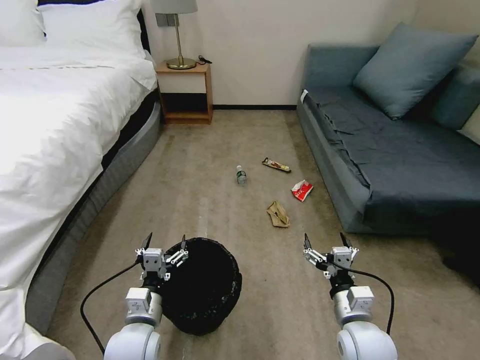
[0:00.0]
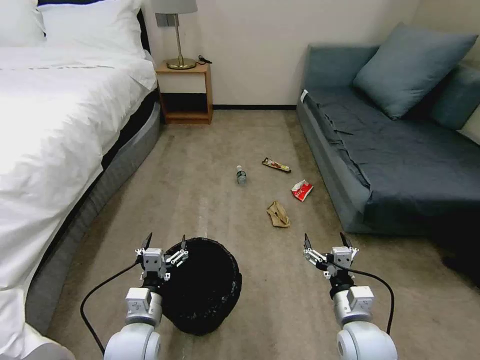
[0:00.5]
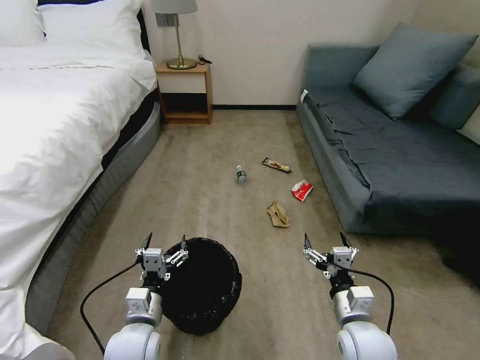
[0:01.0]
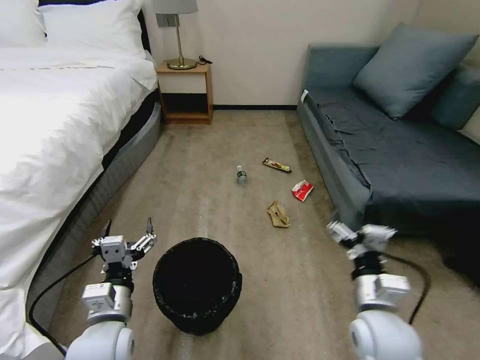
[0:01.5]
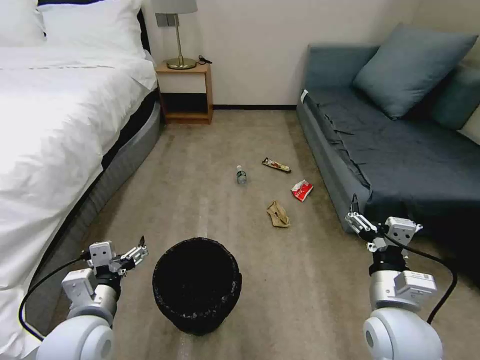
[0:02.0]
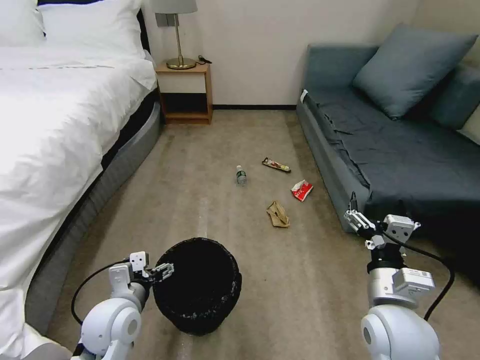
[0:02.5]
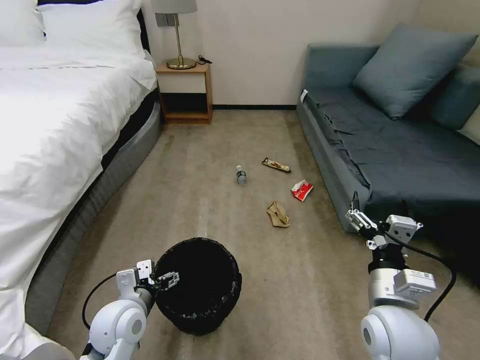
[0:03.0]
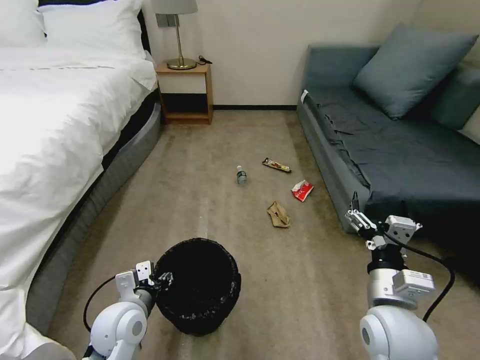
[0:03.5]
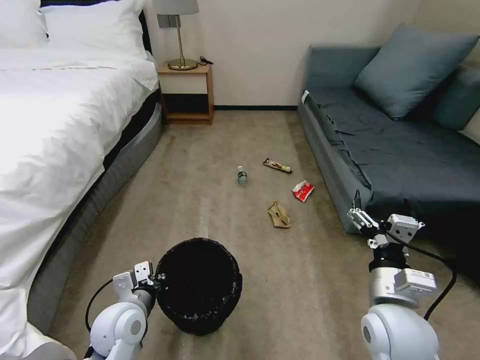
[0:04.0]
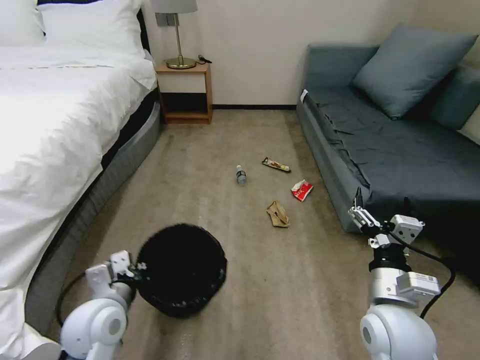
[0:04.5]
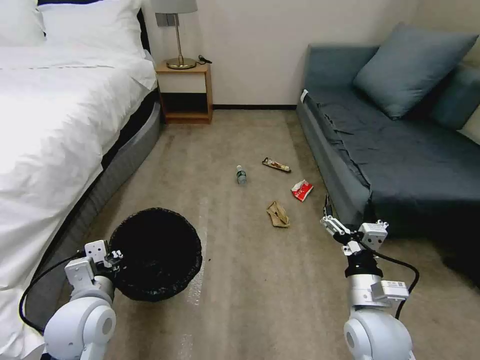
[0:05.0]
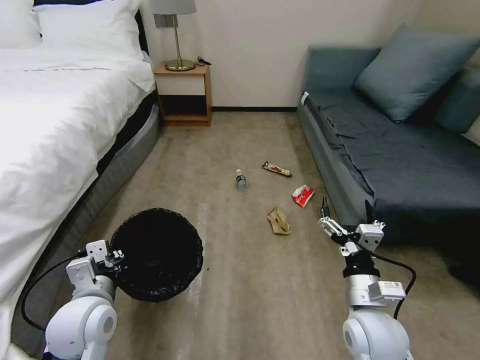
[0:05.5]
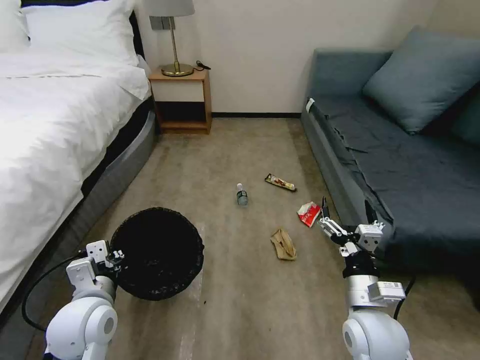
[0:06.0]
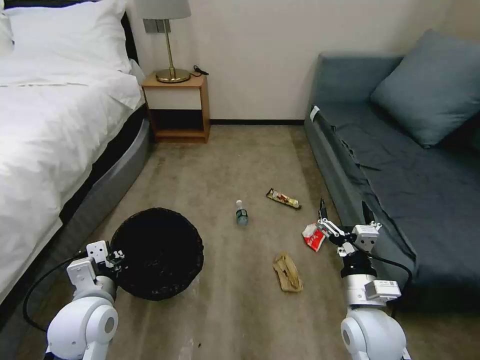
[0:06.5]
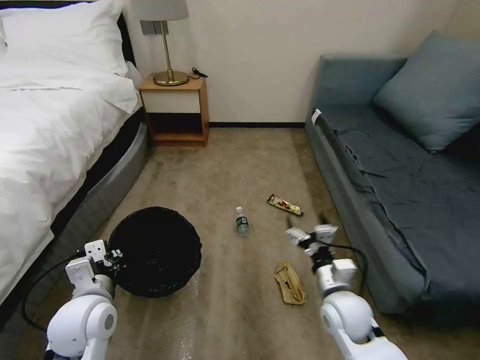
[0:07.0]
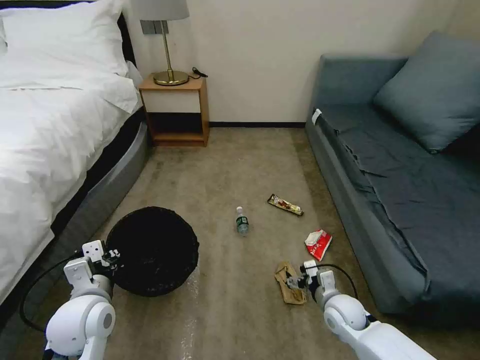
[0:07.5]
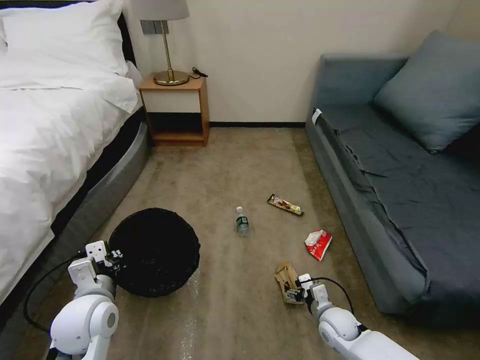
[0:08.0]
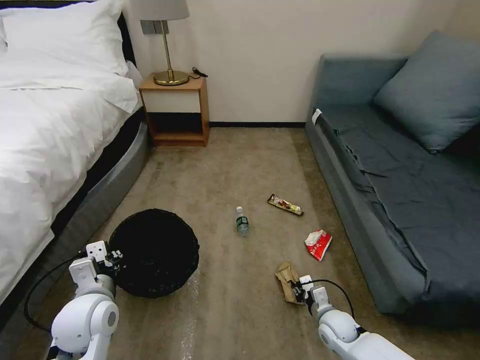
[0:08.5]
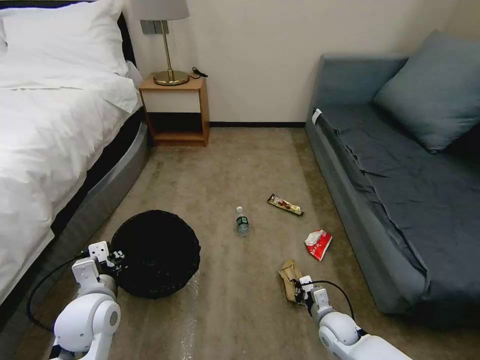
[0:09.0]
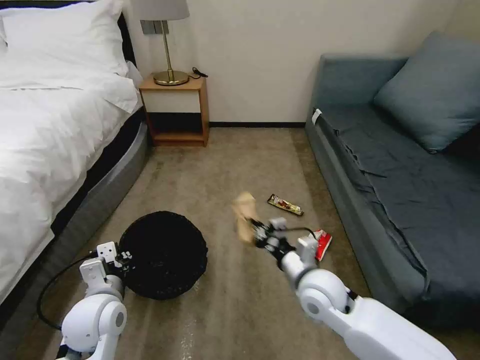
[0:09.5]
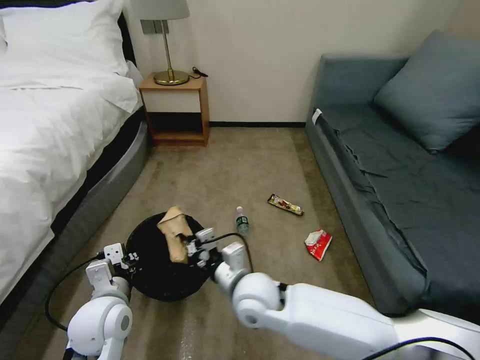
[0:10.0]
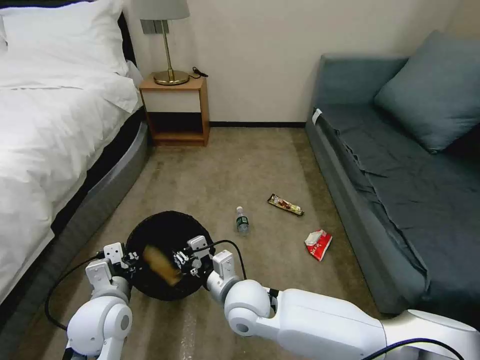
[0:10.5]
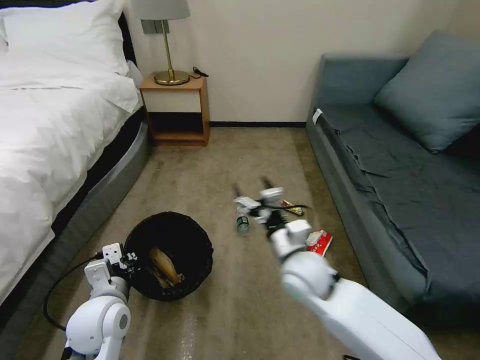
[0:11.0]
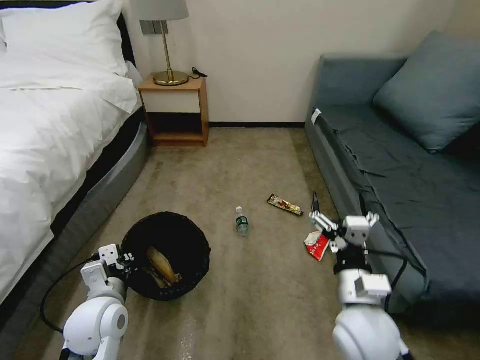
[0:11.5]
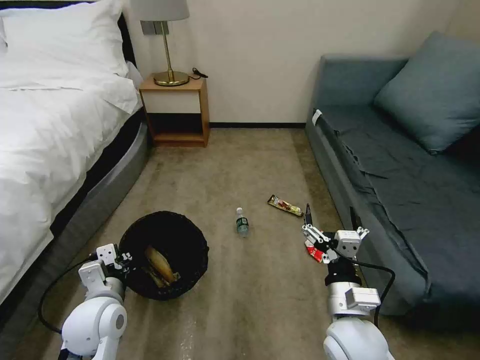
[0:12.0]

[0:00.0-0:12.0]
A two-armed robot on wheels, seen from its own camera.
Task of the whole recording: Pick up the trash bin, then pick up the garbage on the floor and place it into the trash bin.
0:02.0 to 0:04.0: The left gripper heads downward, covering approximately 10 cm, and closes.
0:04.0 to 0:06.0: The left gripper is displaced upward by approximately 5 cm.
0:06.0 to 0:08.0: The right gripper shifts roughly 20 cm downward.
0:08.0 to 0:10.0: The right gripper travels to the left and upward by some 30 cm, and closes its fingers.
0:10.0 to 0:12.0: The right gripper heads to the right and backward, covering approximately 20 cm, and opens.

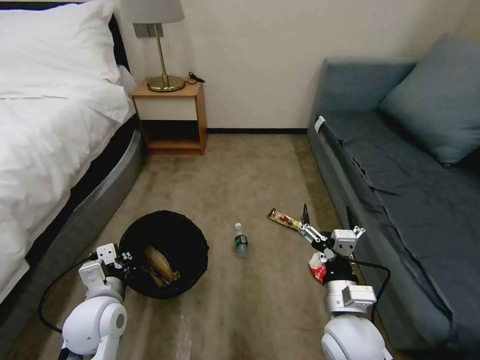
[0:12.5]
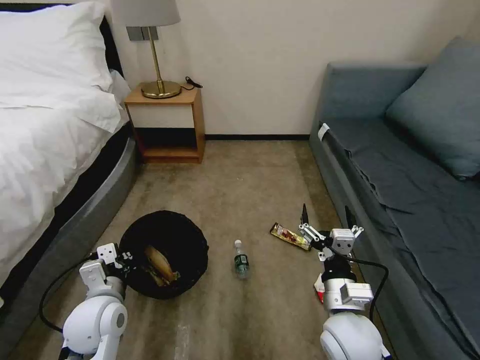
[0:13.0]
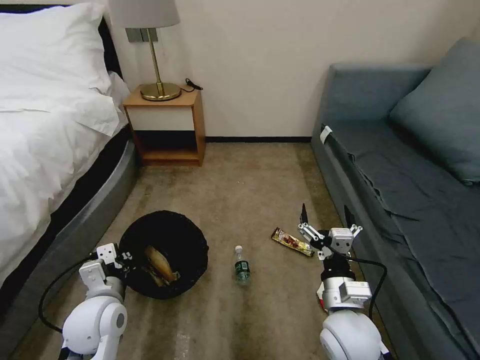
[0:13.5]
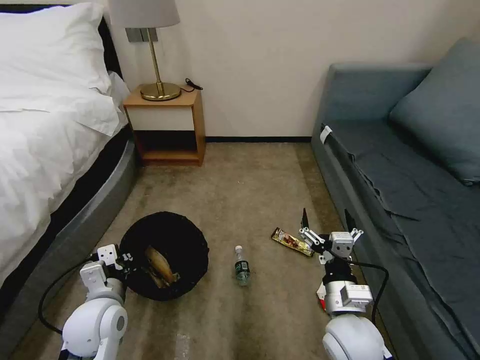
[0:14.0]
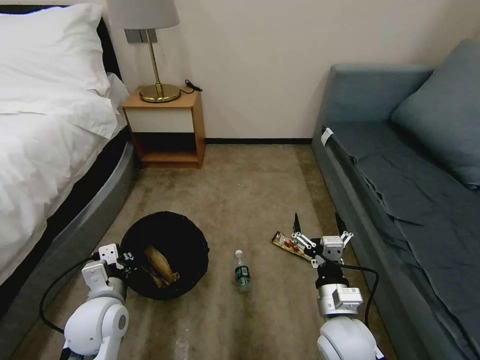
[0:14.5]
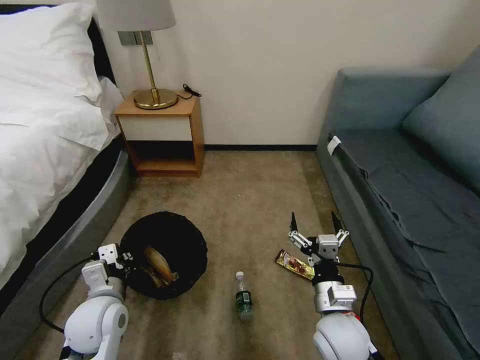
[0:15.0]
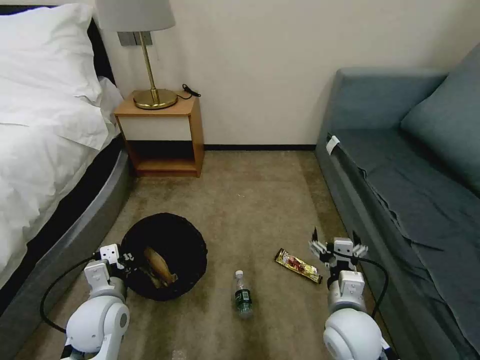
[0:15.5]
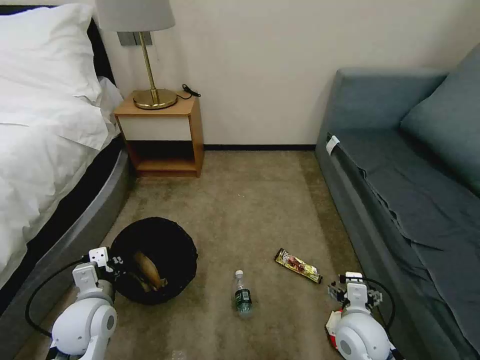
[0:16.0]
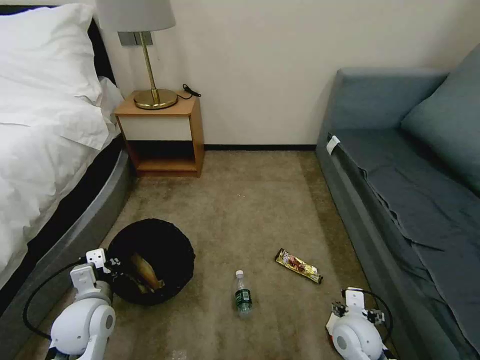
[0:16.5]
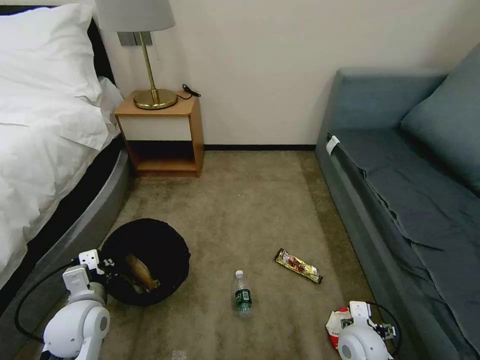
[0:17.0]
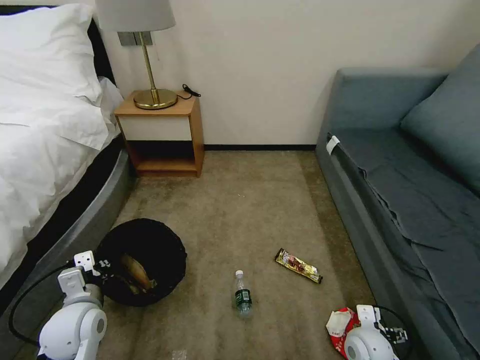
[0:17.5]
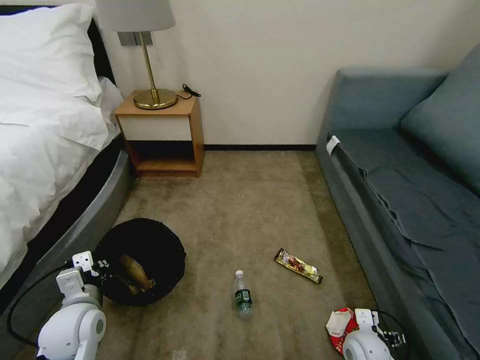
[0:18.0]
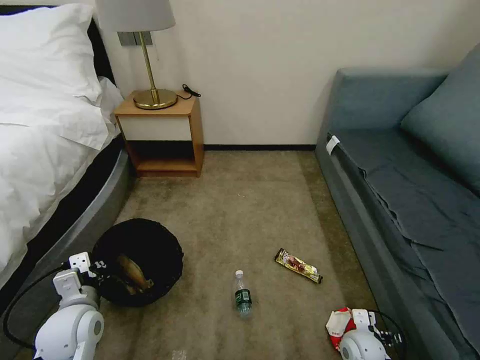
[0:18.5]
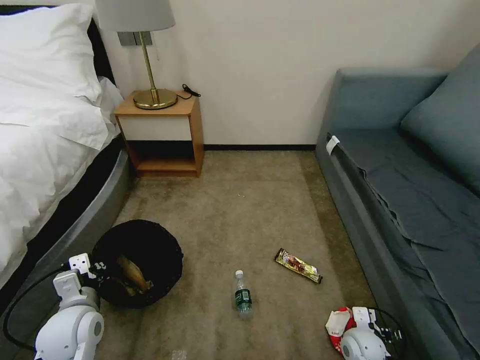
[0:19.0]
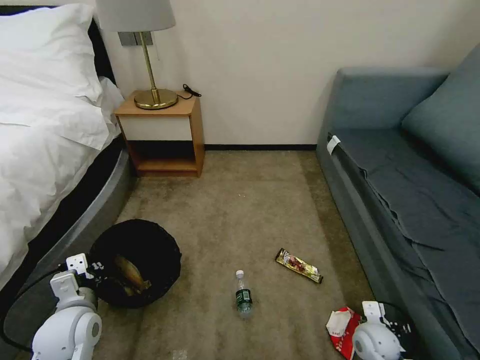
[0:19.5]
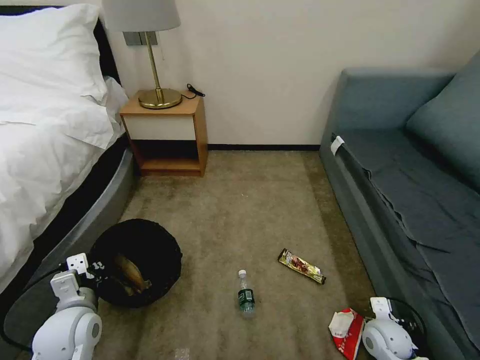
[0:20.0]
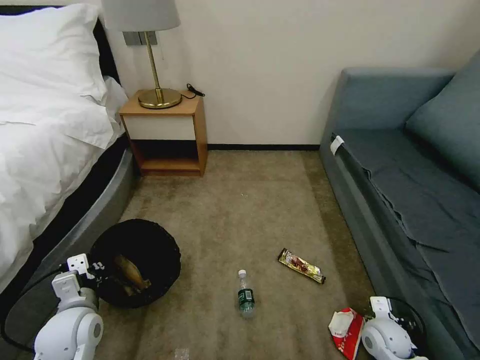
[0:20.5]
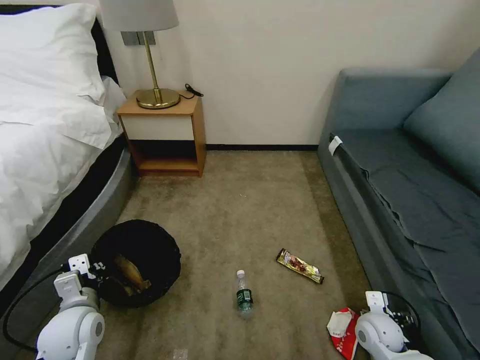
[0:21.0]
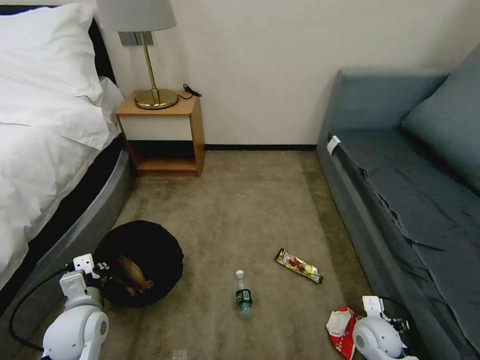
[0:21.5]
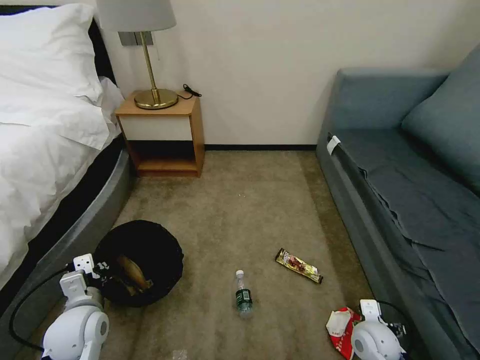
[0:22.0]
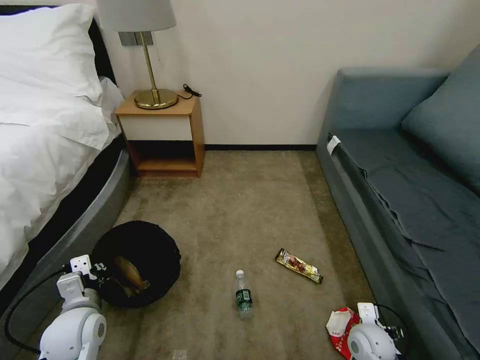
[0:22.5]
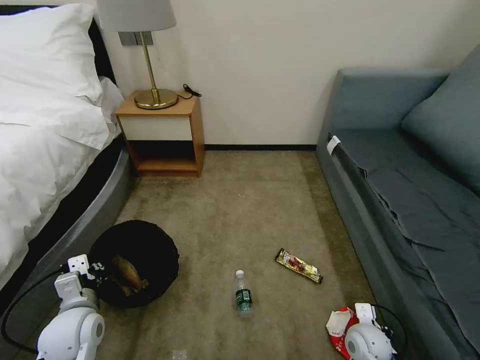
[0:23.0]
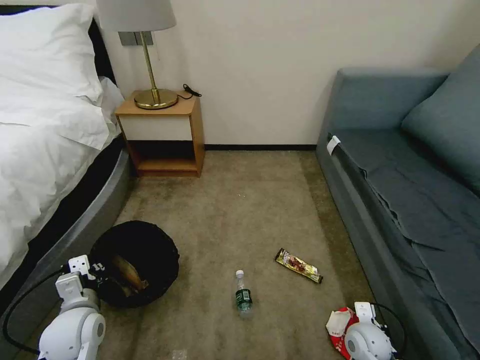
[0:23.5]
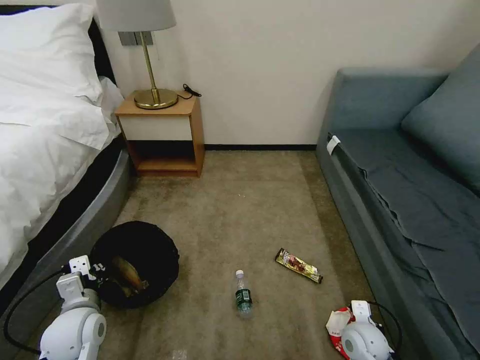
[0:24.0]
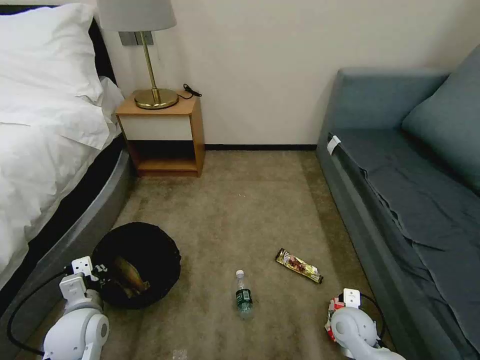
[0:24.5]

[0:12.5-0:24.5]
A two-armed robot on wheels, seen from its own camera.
Task of the whole recording: Pick up the trash bin, then pick up the garbage on the floor and place it into the trash bin.
0:12.5 to 0:14.5: The grippers make only small movements.
0:14.5 to 0:16.5: The right gripper moves downward and to the right, roughly 10 cm.
0:16.5 to 0:18.5: The right gripper heads downward and to the right, covering roughly 10 cm.
0:18.5 to 0:20.5: The right gripper heads upward, covering about 5 cm.
0:20.5 to 0:22.5: The grippers move only a little.
0:22.5 to 0:24.5: The right gripper moves some 5 cm, and closes, then opens again.

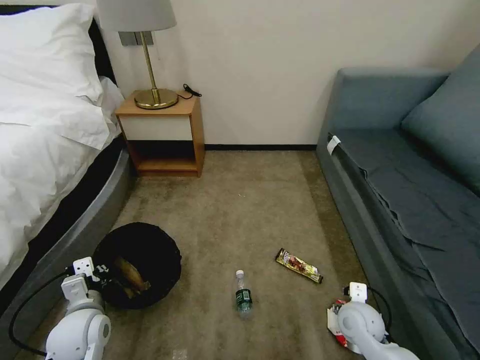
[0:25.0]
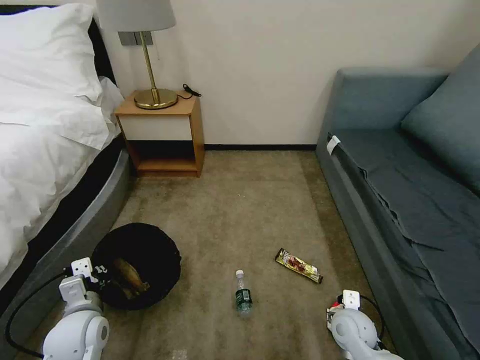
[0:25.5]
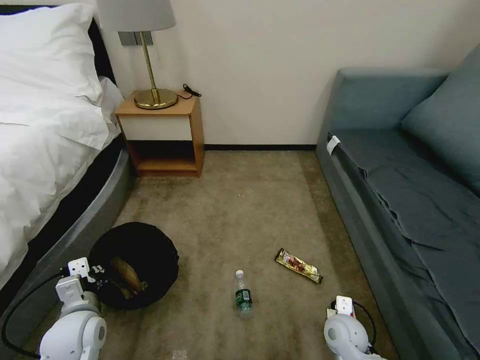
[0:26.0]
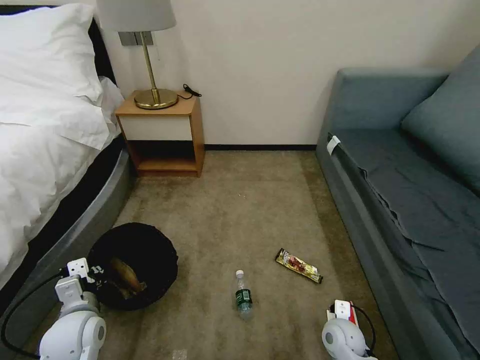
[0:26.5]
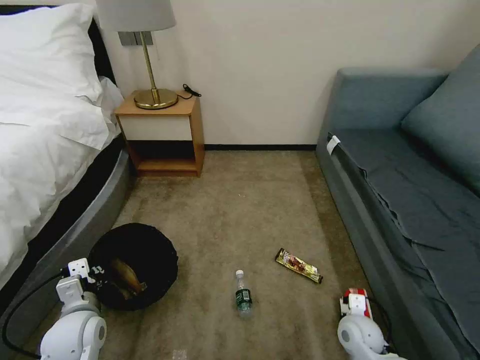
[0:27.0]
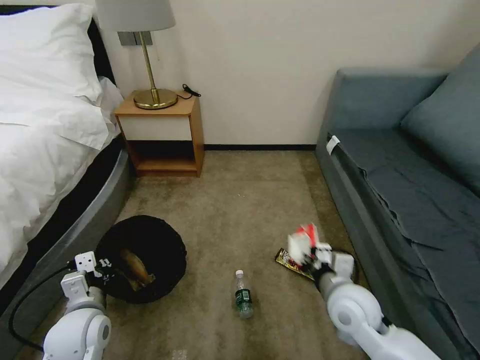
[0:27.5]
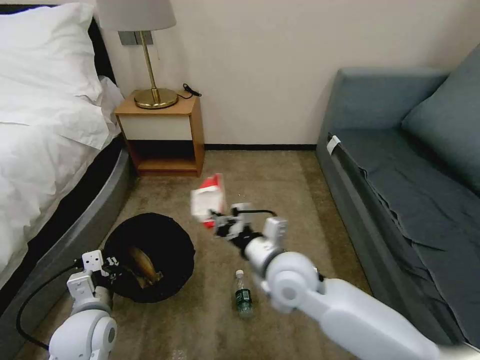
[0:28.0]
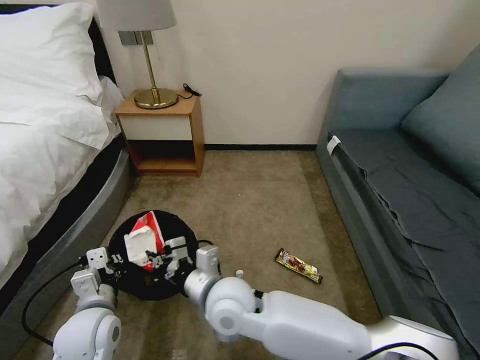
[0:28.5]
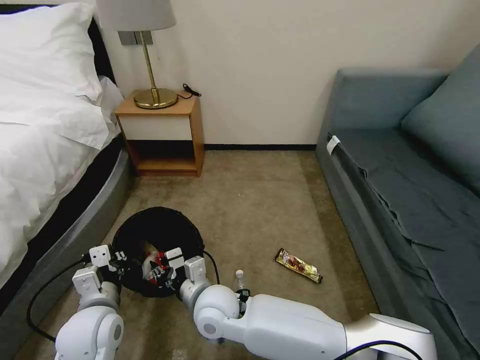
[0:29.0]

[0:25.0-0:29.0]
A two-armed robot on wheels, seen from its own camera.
Task of the whole recording: Pick up the trash bin, then pick up the garbage on the floor and place it into the trash bin.
0:25.0 to 0:27.0: The right gripper closes up.
0:27.0 to 0:29.0: The right gripper moves to the left, about 35 cm; the left gripper is displaced to the right by some 5 cm.
